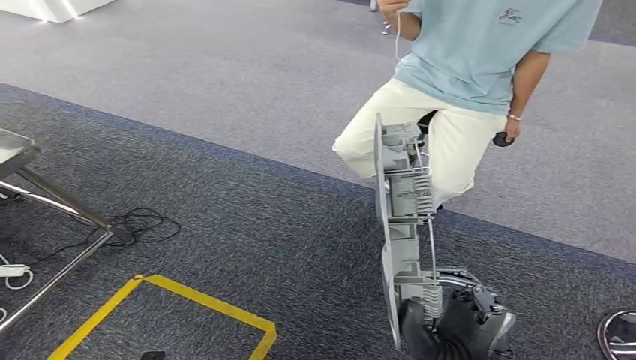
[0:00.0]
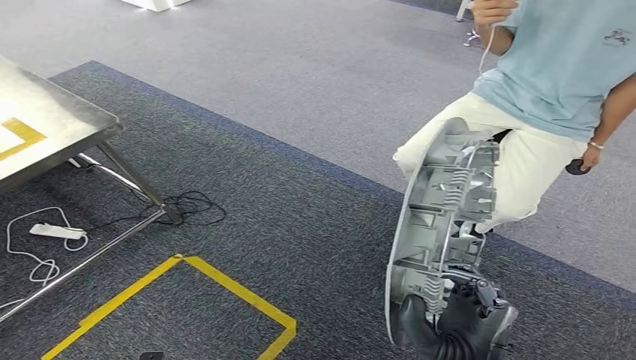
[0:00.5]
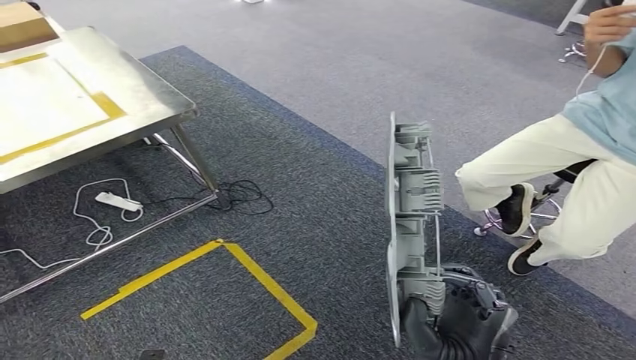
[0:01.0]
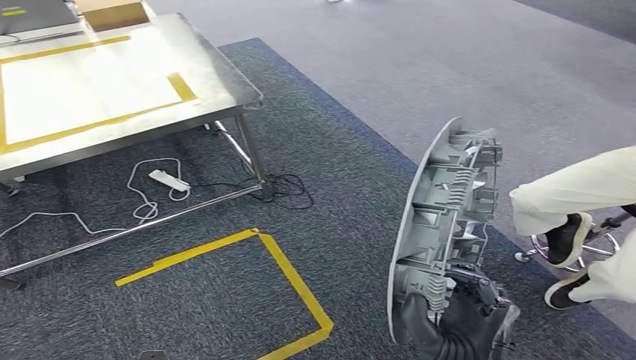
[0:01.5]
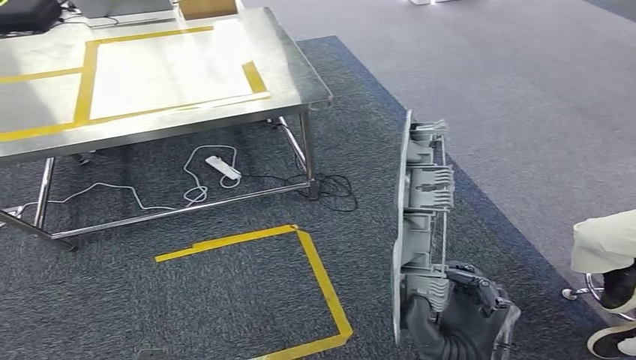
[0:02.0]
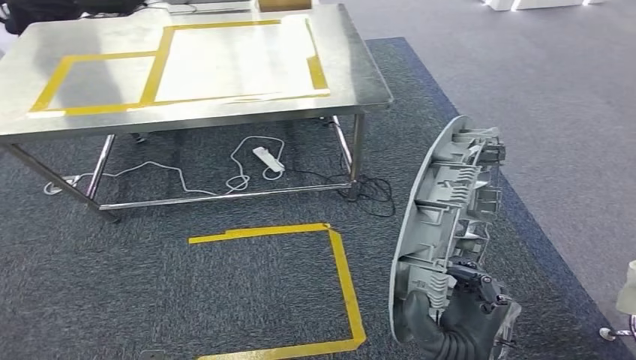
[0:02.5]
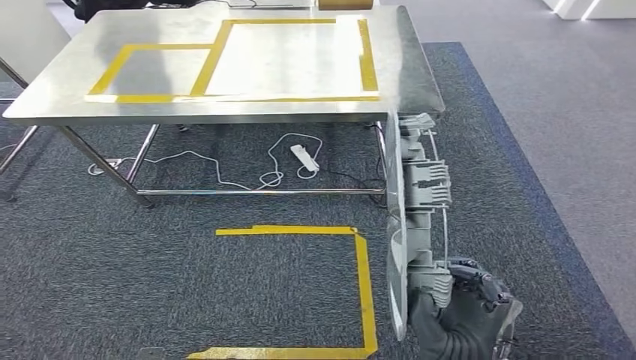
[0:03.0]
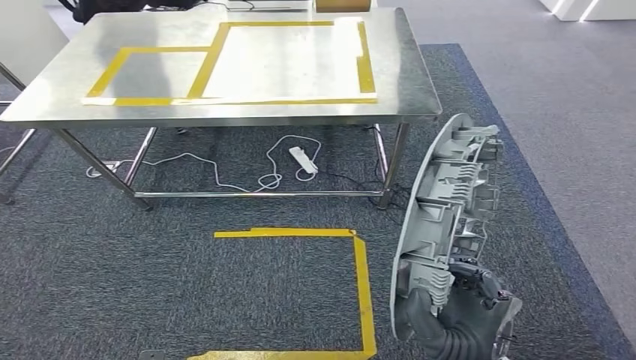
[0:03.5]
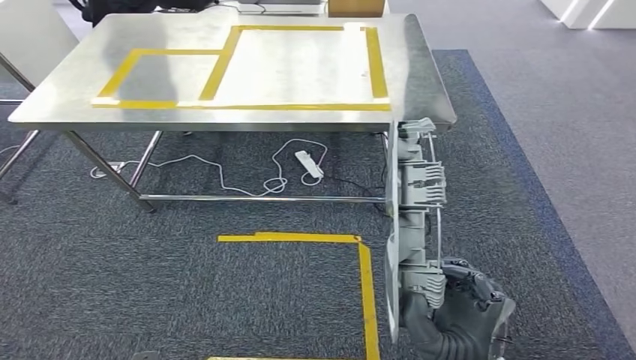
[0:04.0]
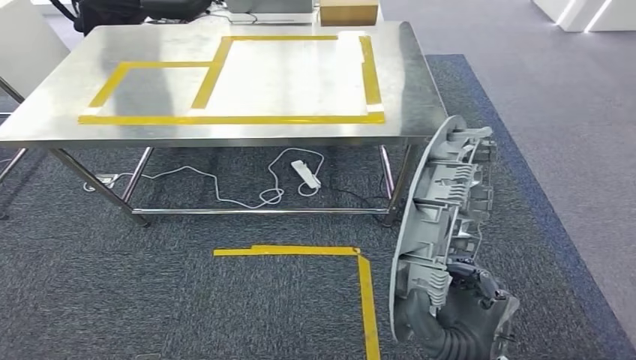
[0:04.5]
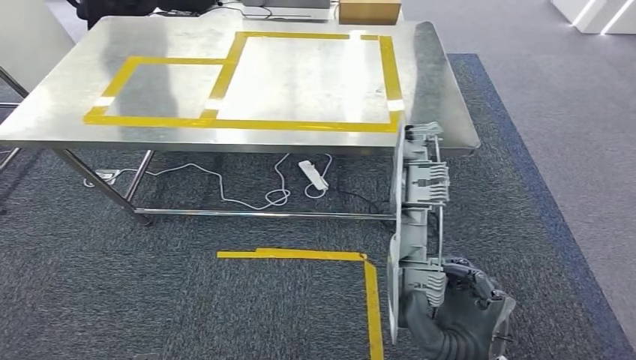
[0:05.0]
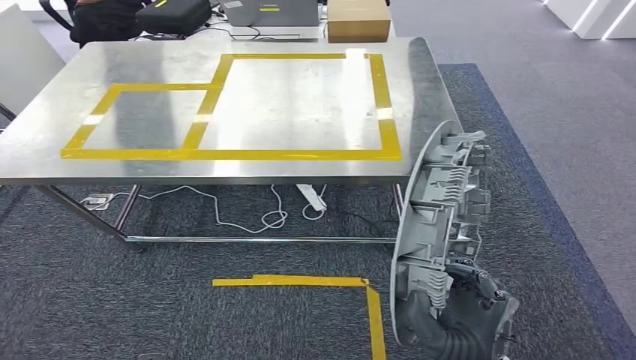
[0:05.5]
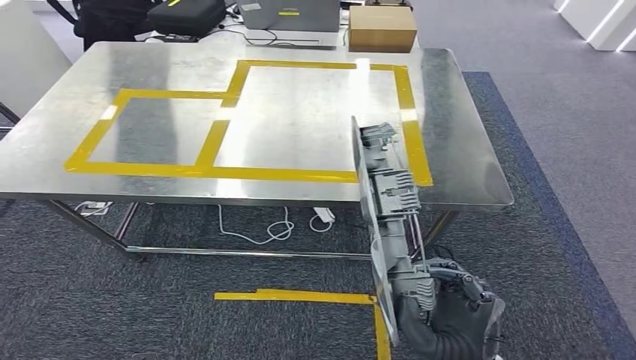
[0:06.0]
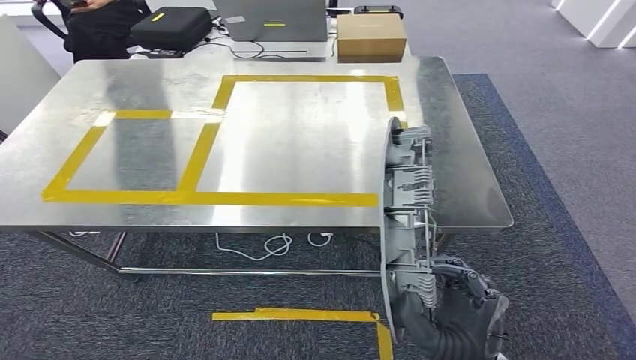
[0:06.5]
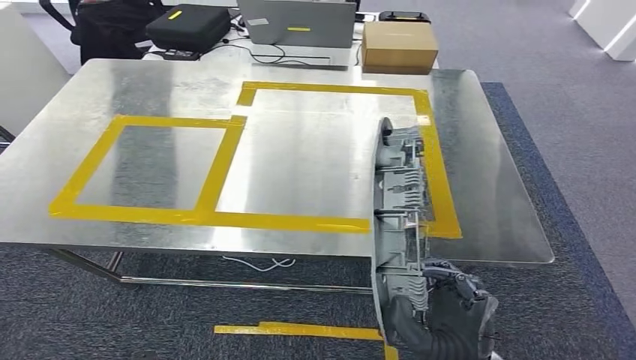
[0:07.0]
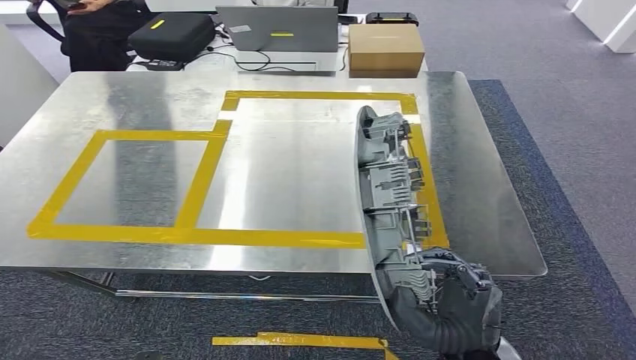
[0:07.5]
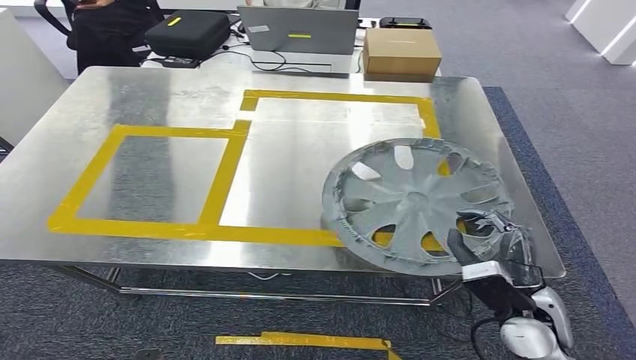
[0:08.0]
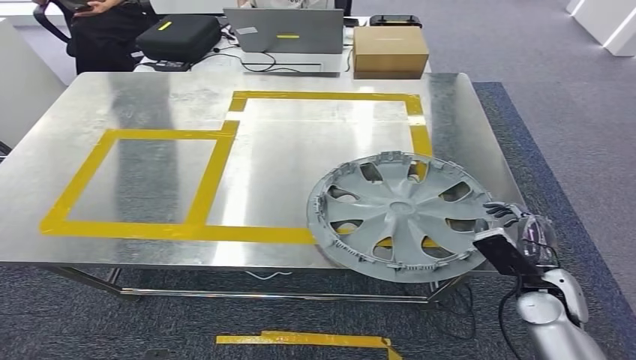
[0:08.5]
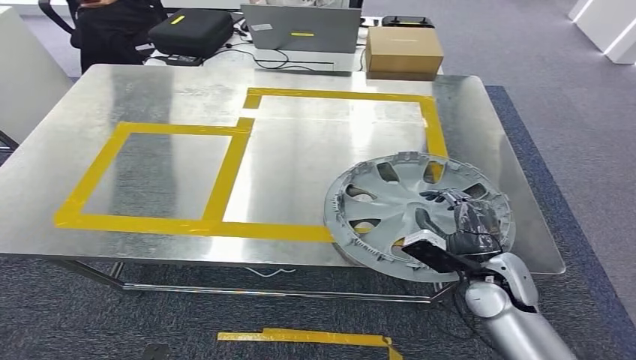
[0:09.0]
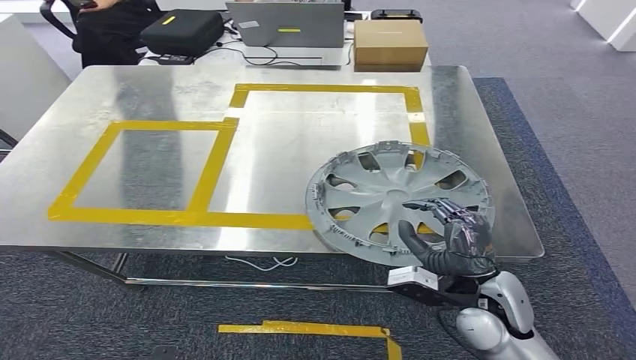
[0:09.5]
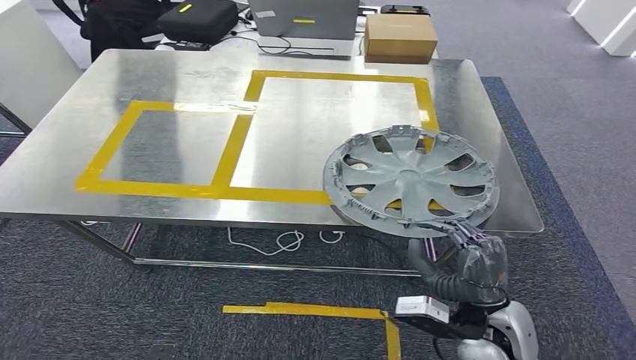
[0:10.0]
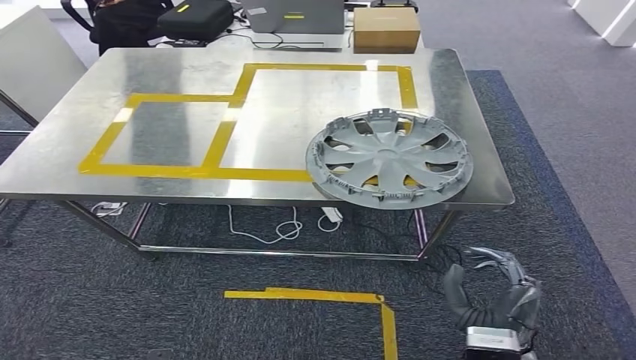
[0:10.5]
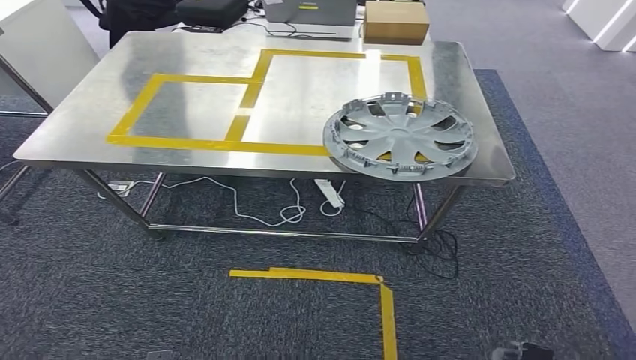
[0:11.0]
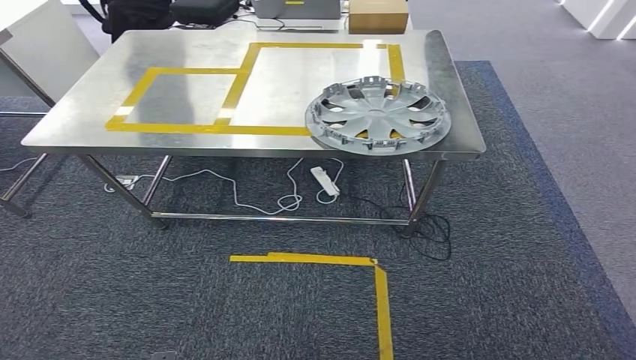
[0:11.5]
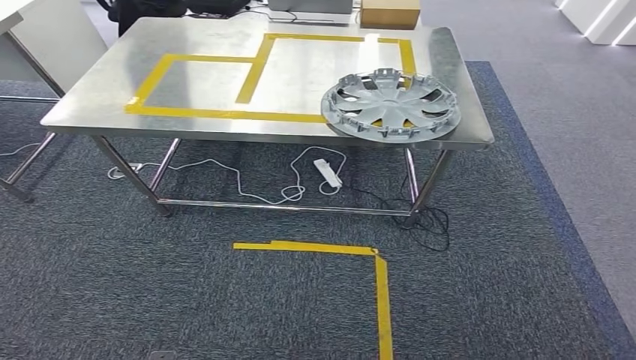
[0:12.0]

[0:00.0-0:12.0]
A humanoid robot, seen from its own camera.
Step, 0:00.0 to 0:03.5: Move the small component to the workbench.
Step, 0:04.0 to 0:10.5: Insert the small component into the corresponding slot on the workbench.

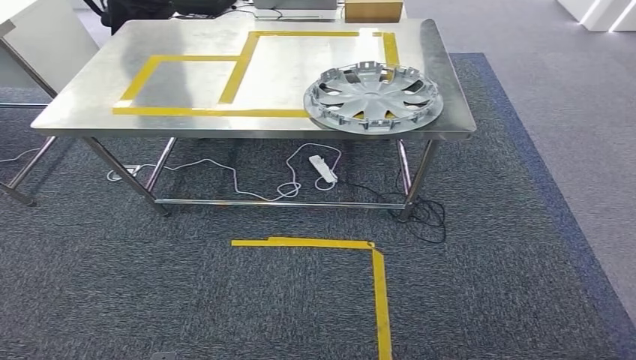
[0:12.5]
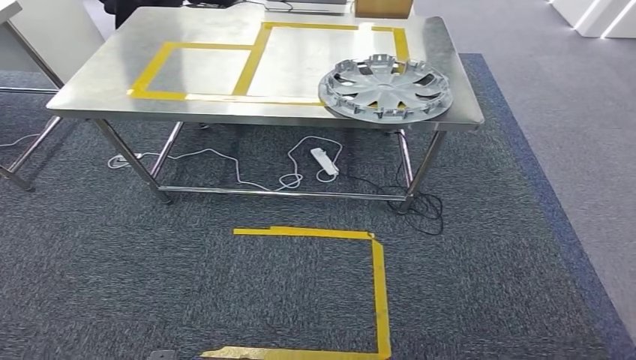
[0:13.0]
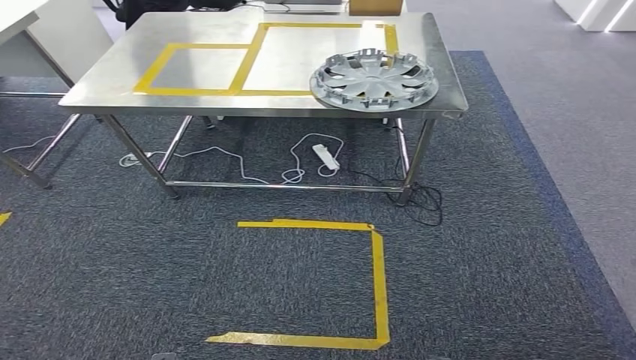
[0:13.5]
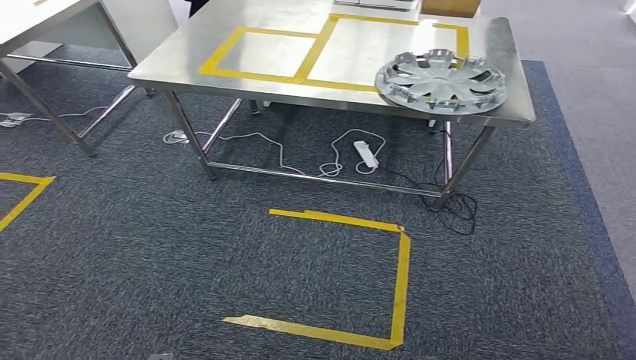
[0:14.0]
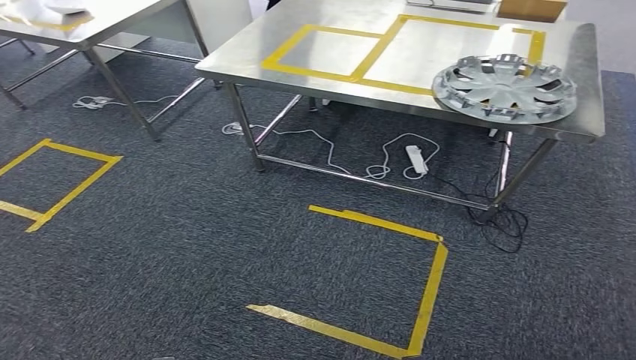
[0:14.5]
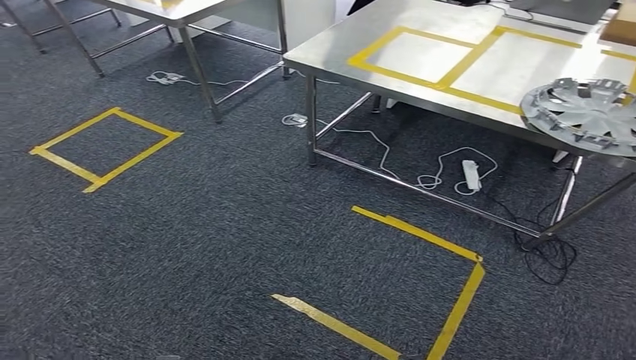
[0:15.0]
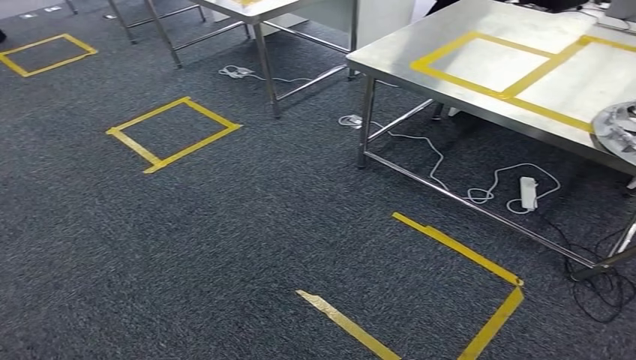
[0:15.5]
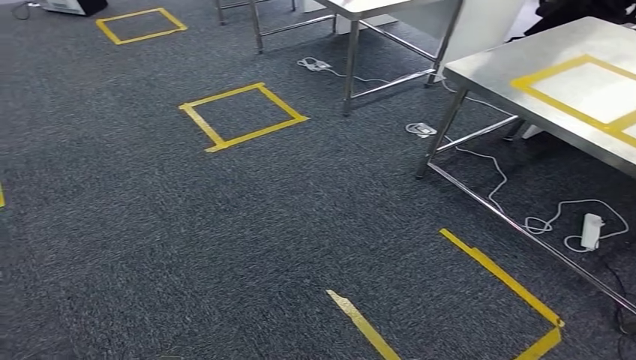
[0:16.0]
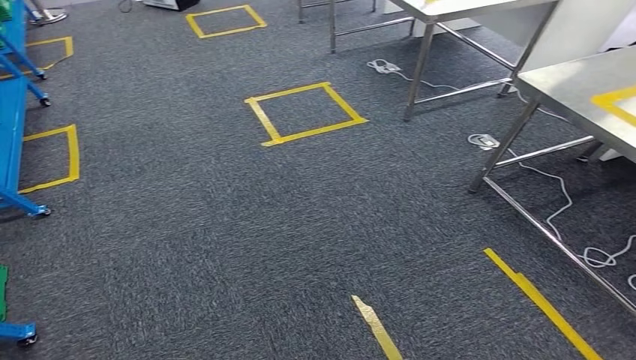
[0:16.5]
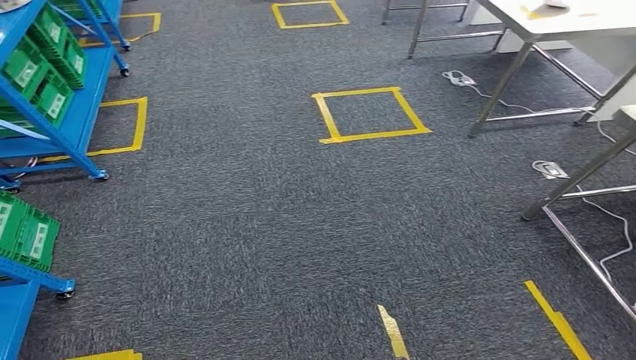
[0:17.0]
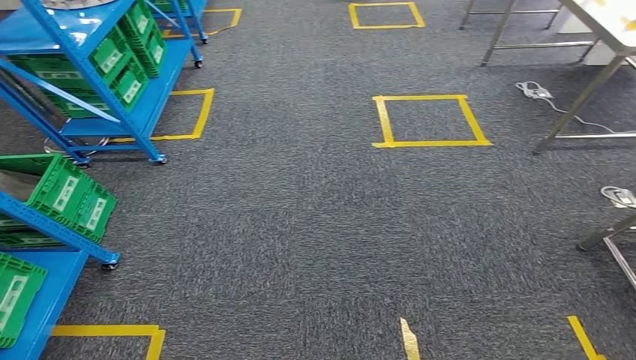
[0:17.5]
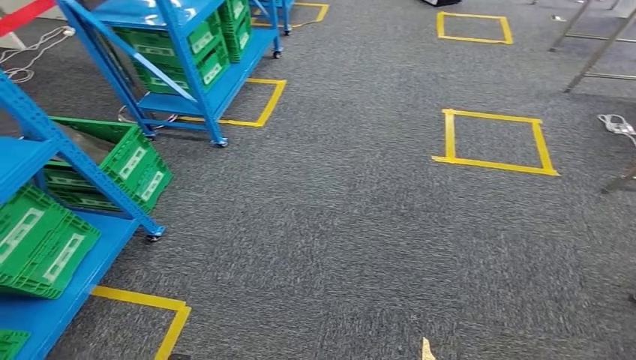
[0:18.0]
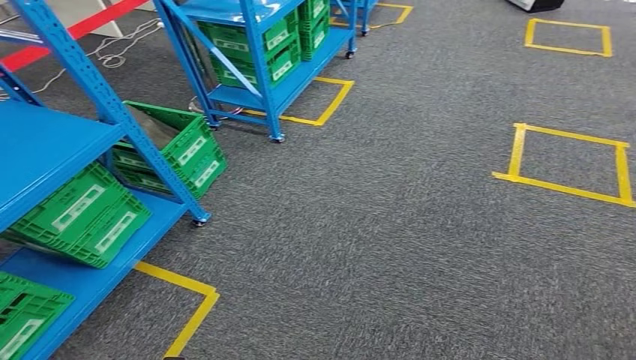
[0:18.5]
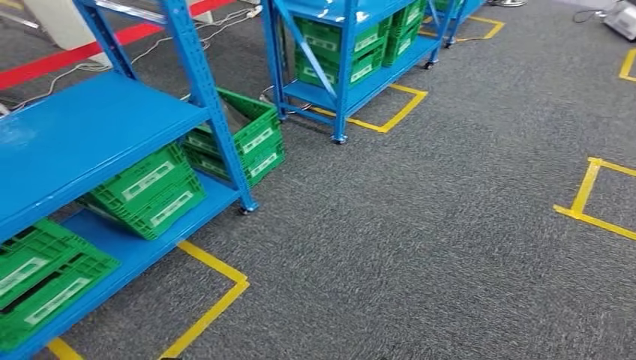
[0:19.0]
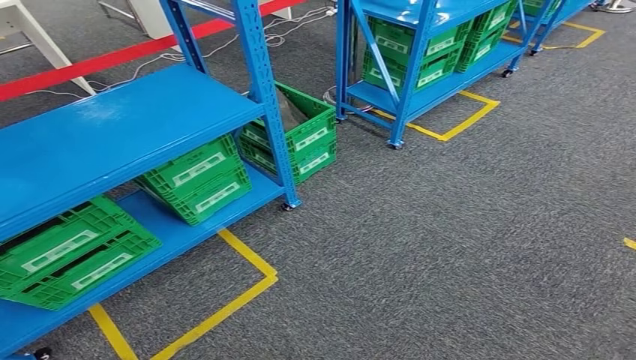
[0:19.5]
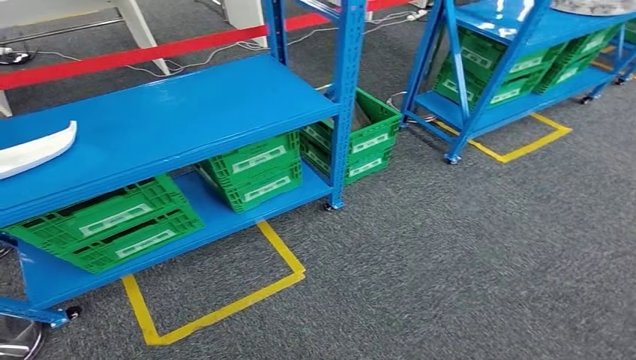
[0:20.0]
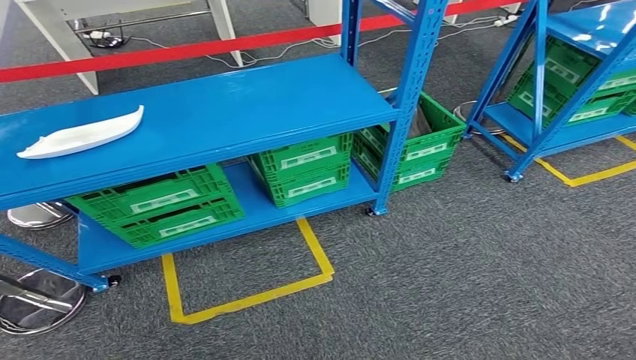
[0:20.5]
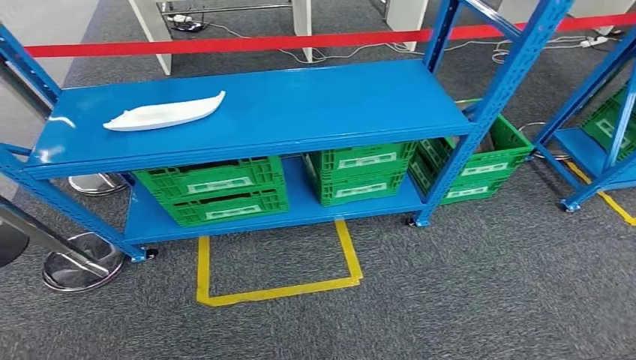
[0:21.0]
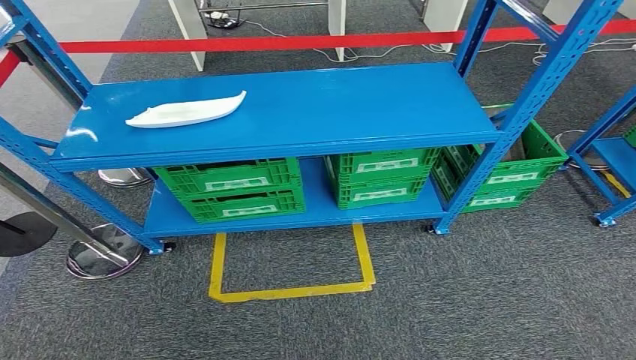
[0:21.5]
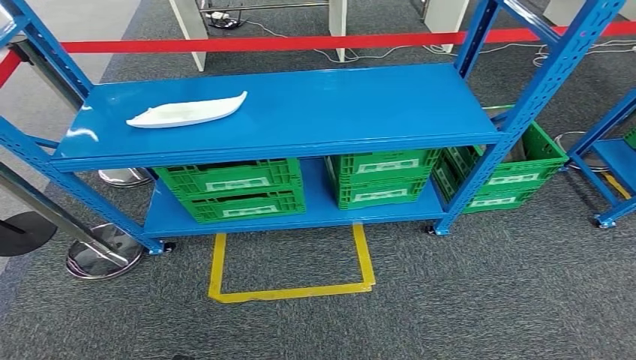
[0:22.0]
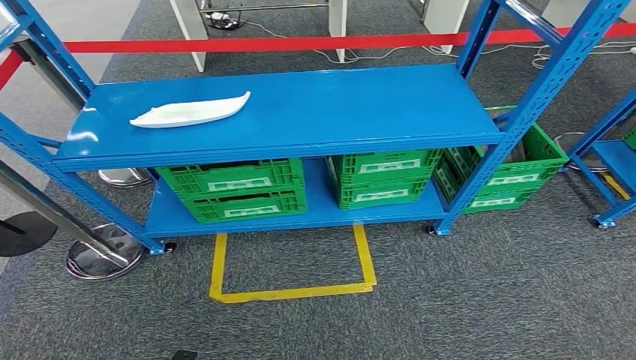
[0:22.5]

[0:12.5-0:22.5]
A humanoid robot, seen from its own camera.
Step, 0:12.5 to 0:22.5: Move to the initial position at the workbench.
